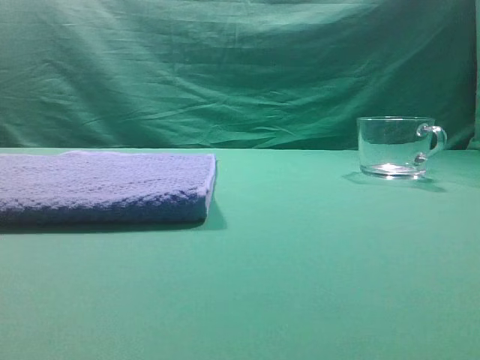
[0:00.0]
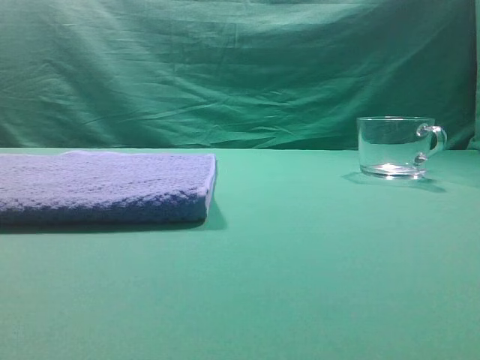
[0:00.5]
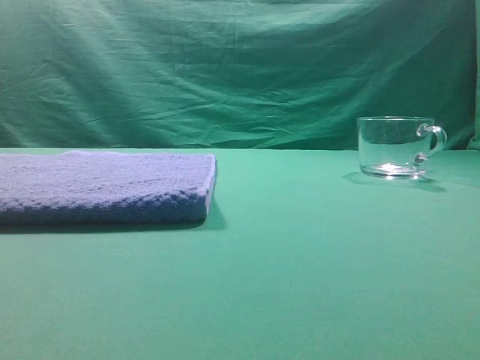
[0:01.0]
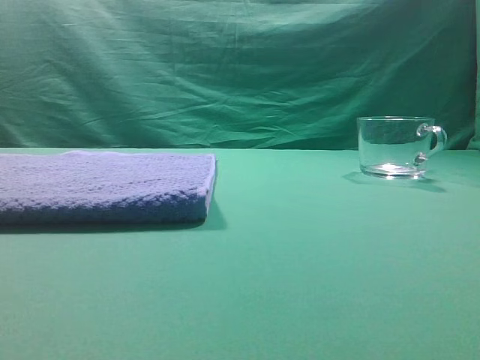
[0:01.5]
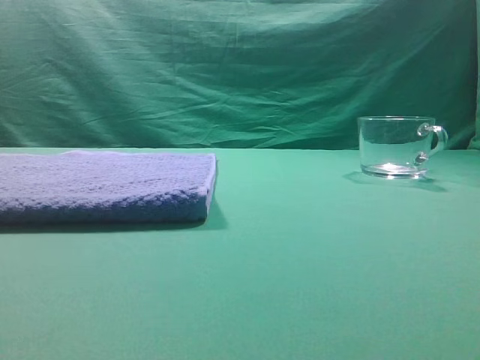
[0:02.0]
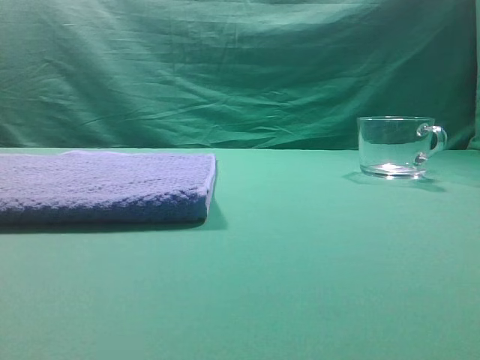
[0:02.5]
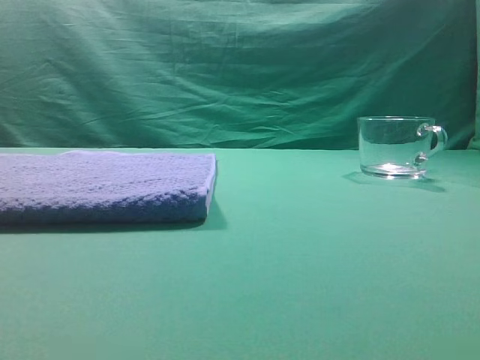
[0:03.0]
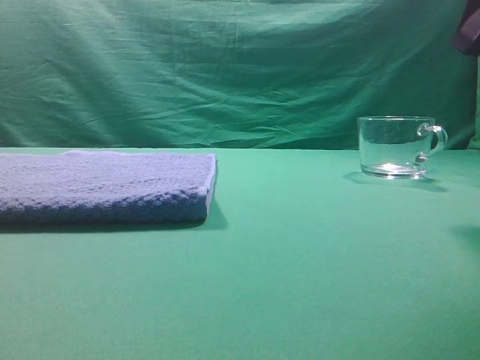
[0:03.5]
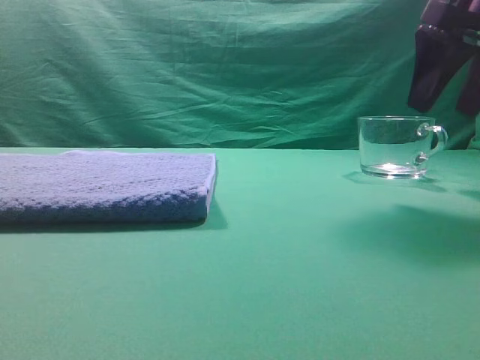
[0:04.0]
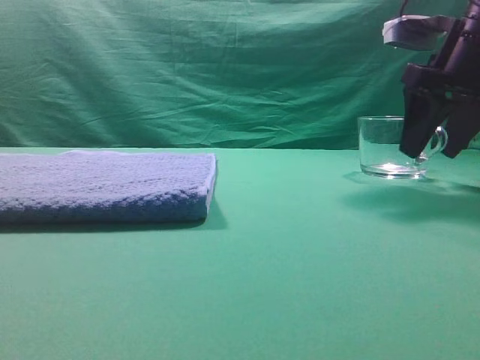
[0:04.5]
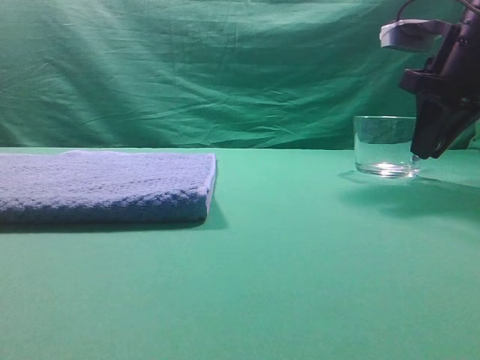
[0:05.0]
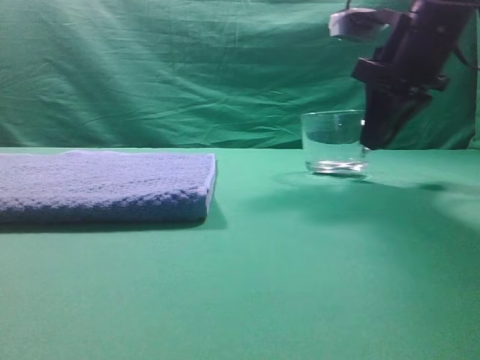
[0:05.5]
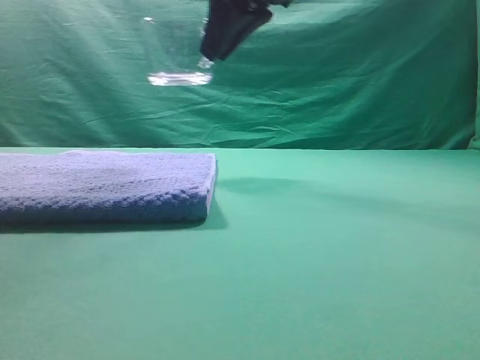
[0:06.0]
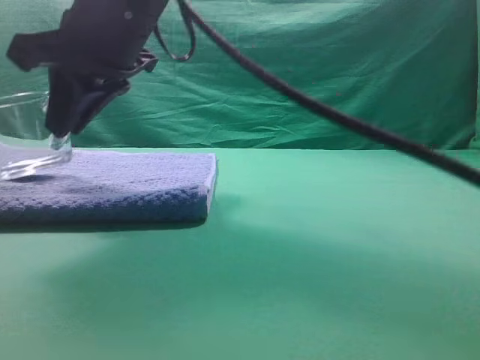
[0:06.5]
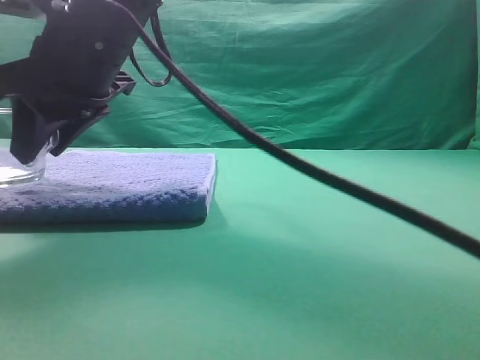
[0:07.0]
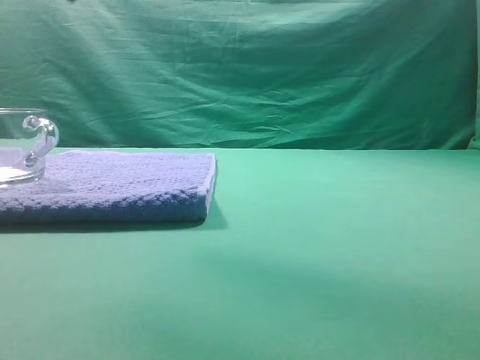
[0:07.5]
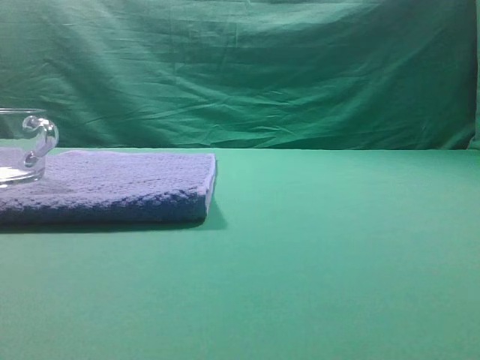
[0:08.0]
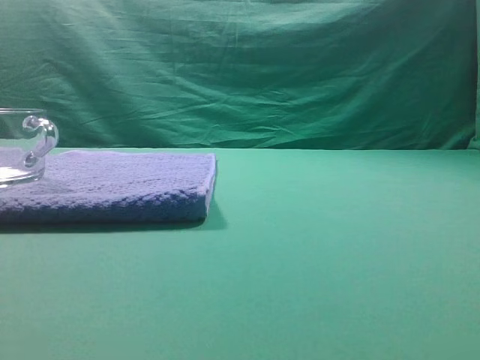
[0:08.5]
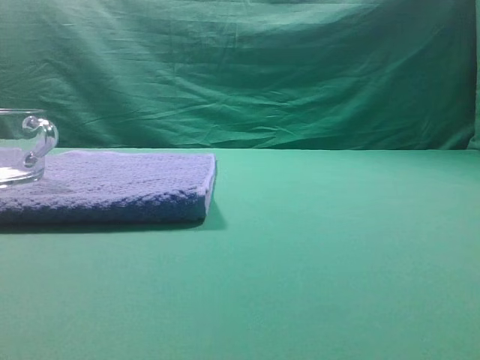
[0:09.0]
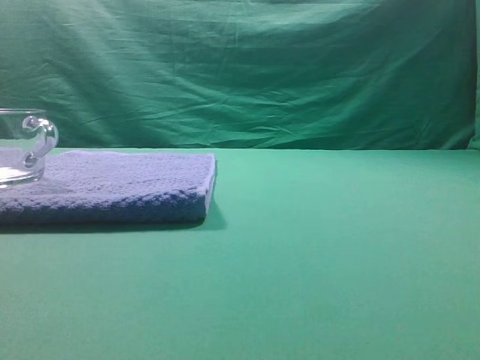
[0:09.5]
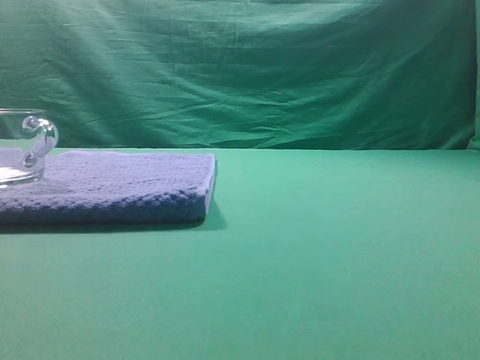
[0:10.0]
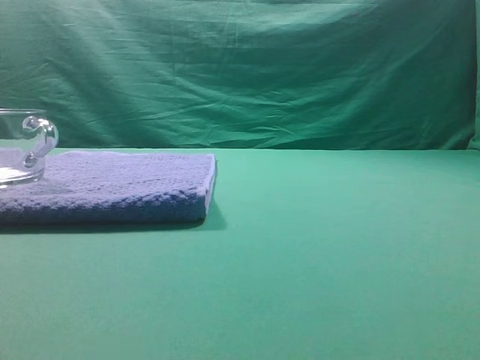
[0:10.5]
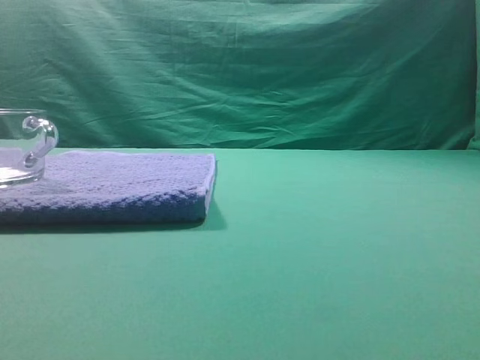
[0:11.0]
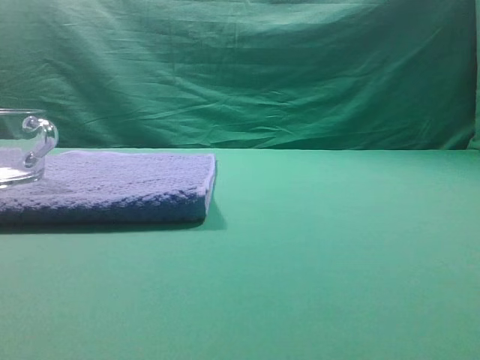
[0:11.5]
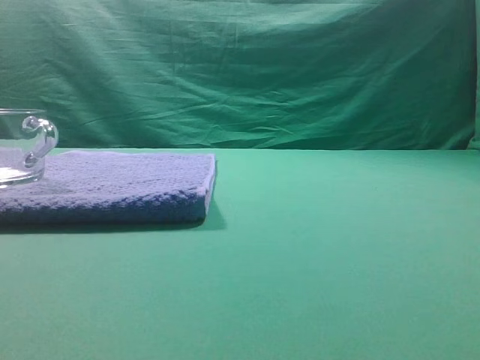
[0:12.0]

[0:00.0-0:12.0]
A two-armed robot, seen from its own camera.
Task of the whole recording: grasp the transparent glass cup and place it within the blue towel.
Step, 0:00.0 to 0:05.5: Grasp the transparent glass cup.
Step, 0:06.0 to 0:07.0: Place the glass cup on the blue zone.

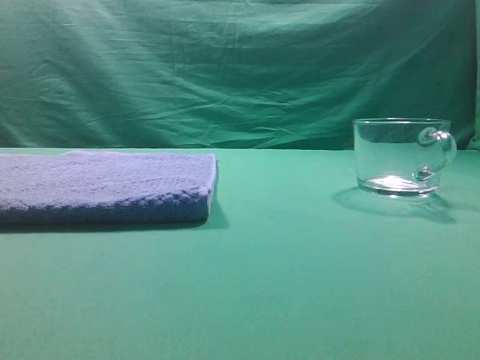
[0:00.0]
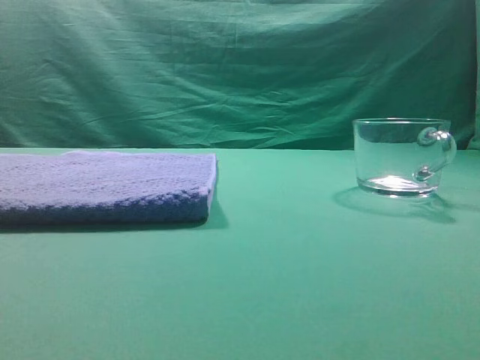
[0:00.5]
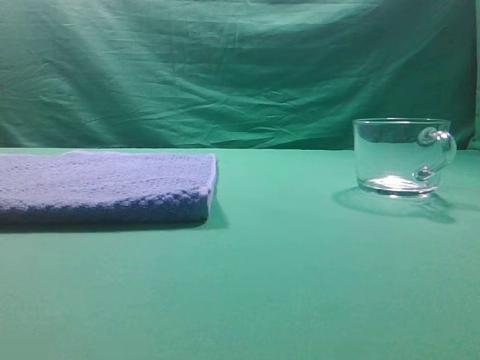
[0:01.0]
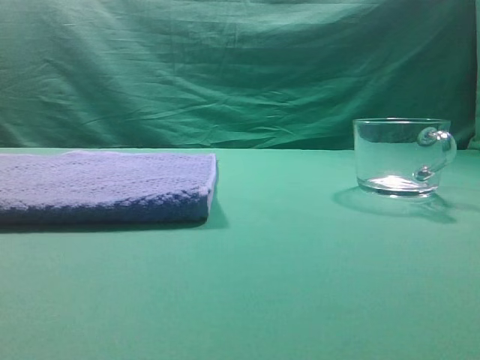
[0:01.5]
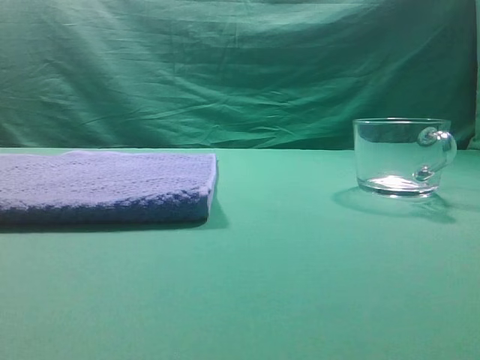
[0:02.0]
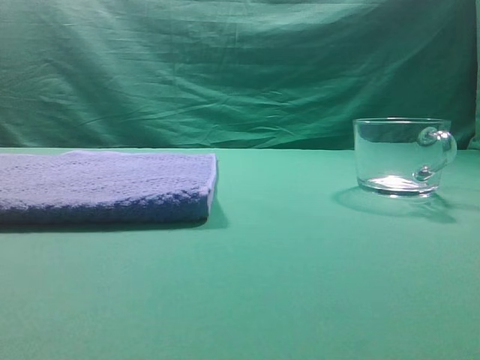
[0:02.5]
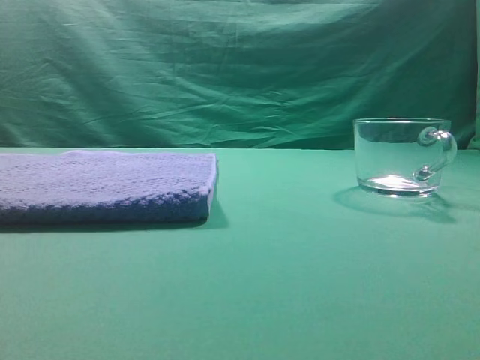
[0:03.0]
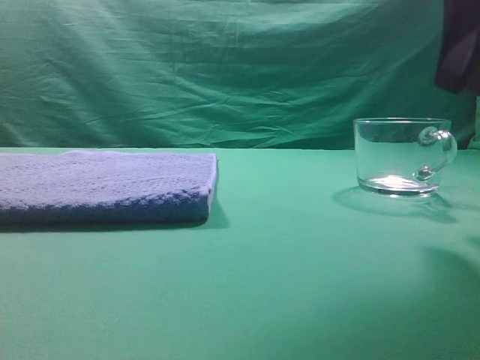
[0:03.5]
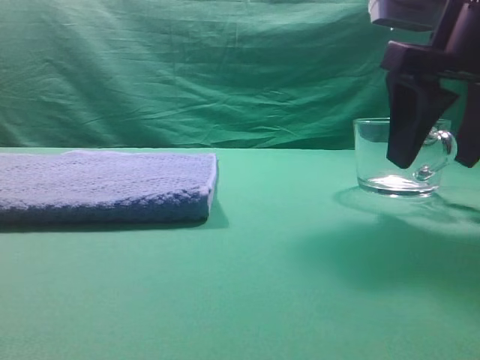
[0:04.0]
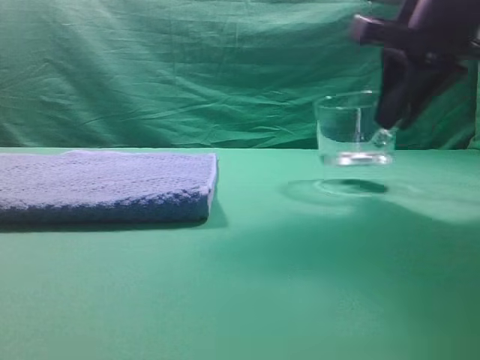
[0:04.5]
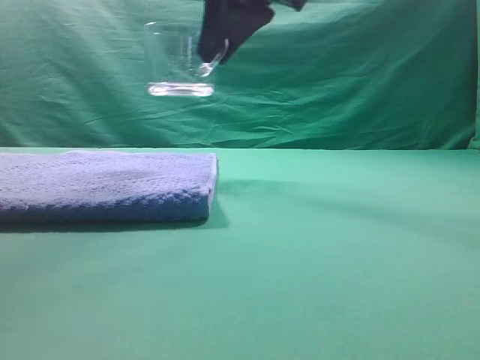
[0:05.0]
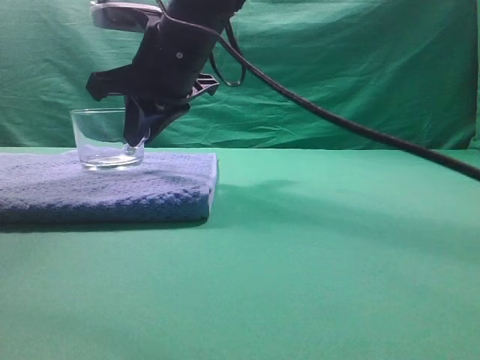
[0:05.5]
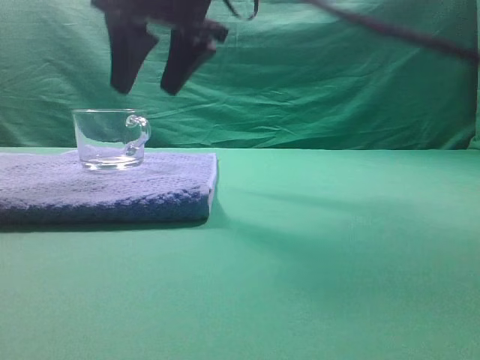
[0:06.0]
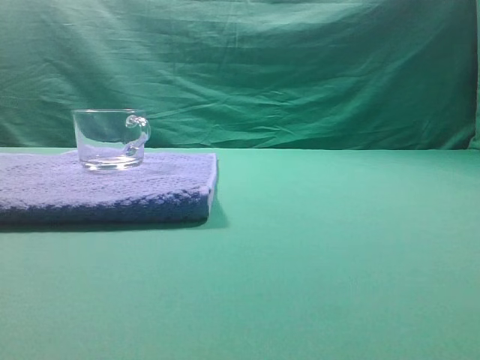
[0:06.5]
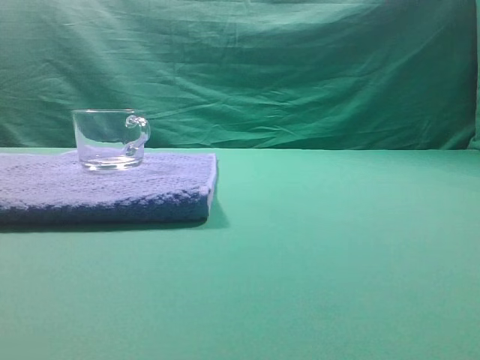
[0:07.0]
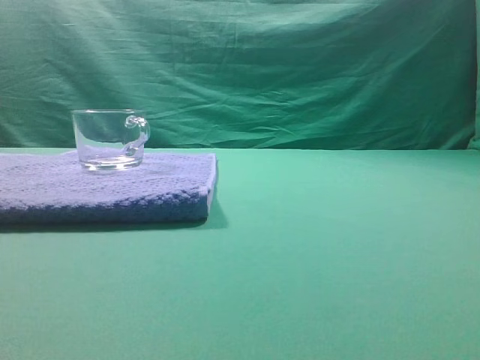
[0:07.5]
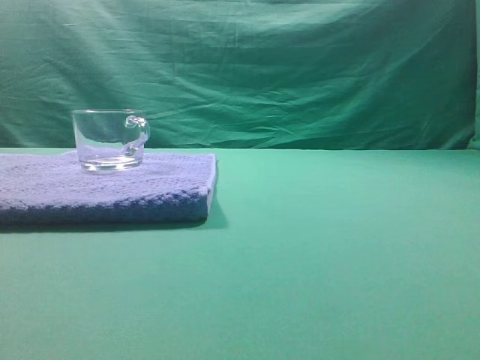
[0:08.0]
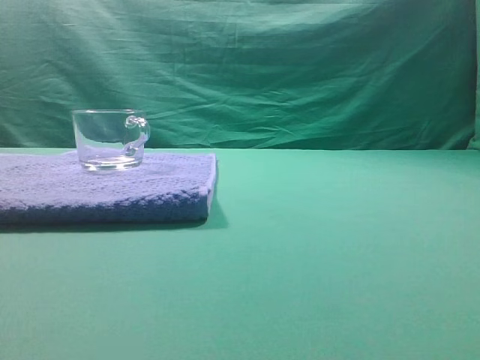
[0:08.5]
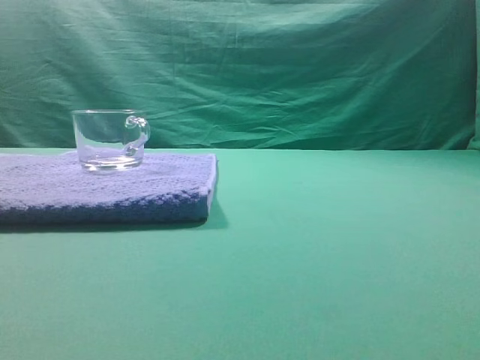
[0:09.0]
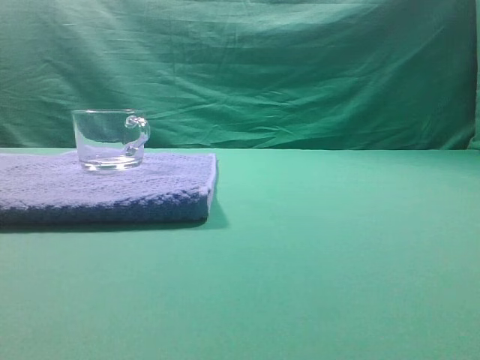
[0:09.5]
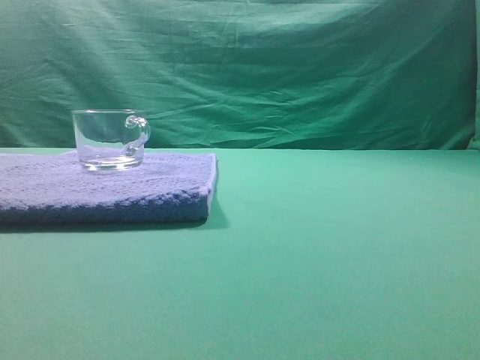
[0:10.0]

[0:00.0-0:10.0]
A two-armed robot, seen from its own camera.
Task of the whole recording: grasp the transparent glass cup and place it within the blue towel.
Step, 0:00.0 to 0:04.5: Grasp the transparent glass cup.
Step, 0:05.0 to 0:06.0: Place the glass cup on the blue zone.

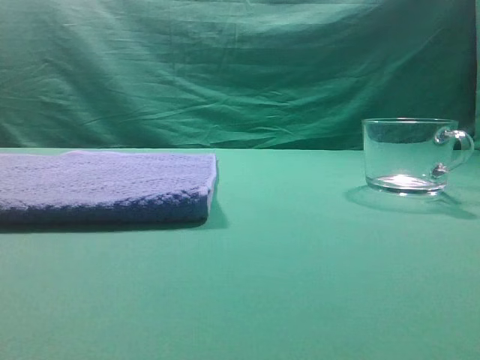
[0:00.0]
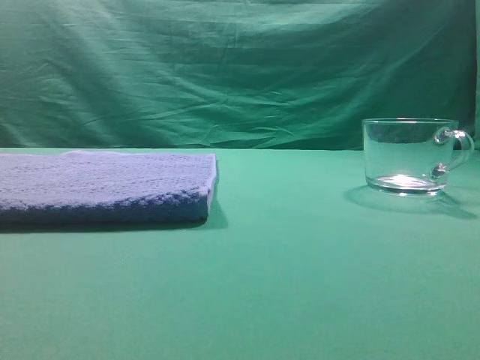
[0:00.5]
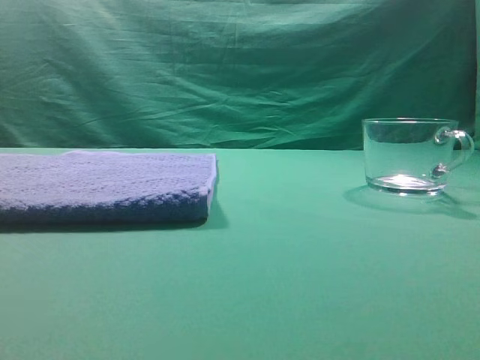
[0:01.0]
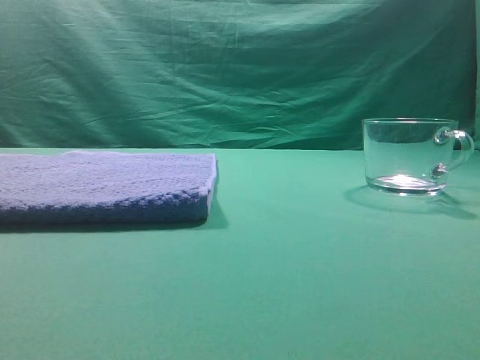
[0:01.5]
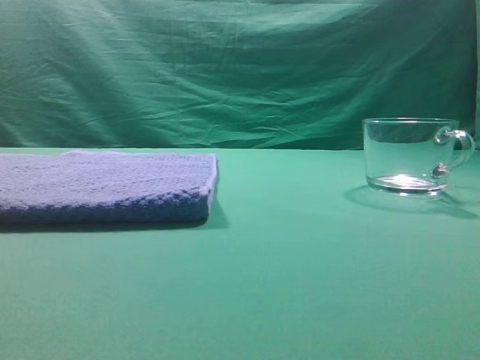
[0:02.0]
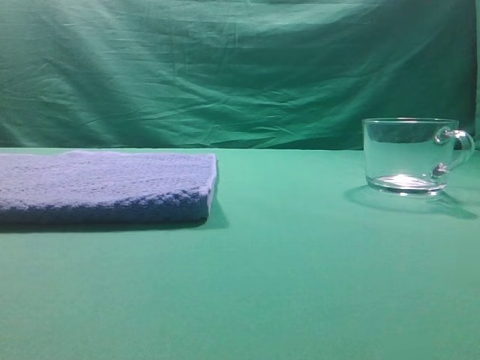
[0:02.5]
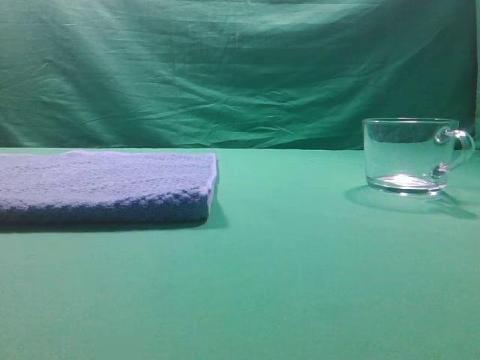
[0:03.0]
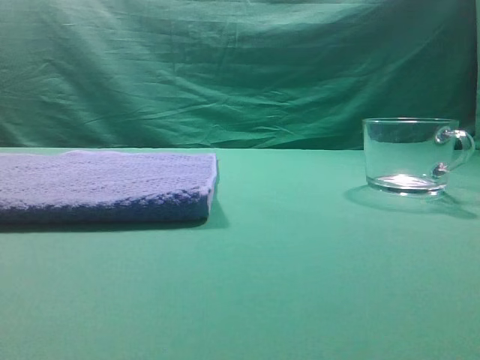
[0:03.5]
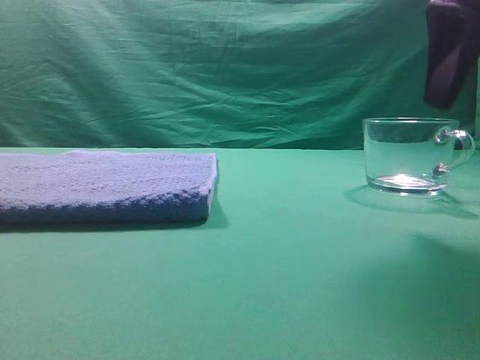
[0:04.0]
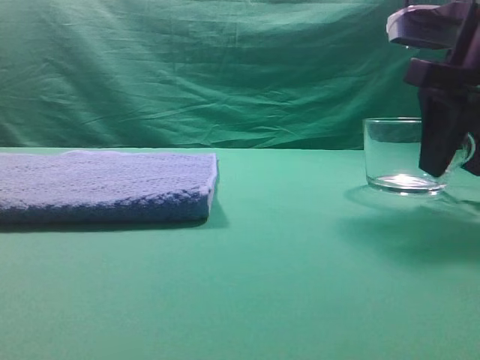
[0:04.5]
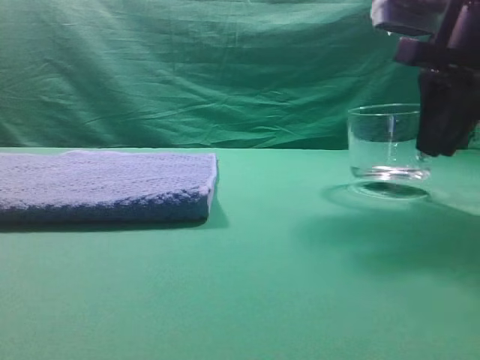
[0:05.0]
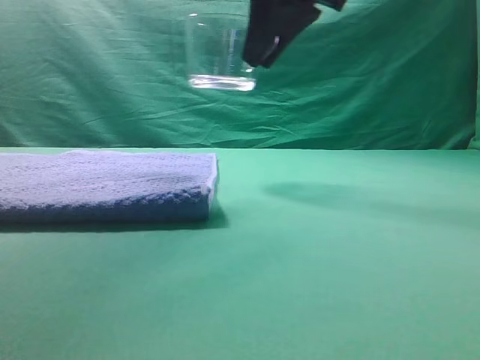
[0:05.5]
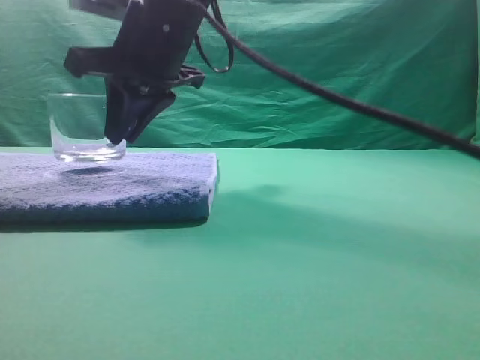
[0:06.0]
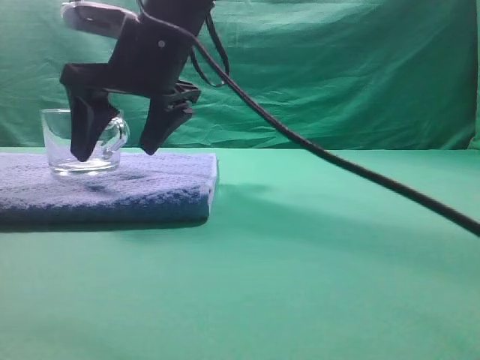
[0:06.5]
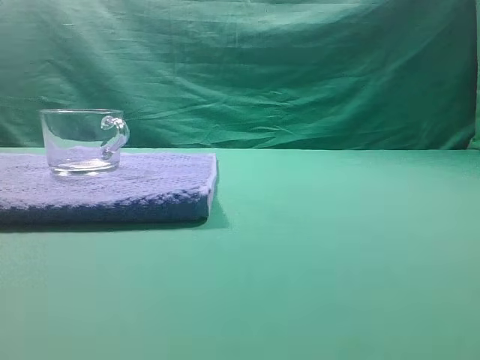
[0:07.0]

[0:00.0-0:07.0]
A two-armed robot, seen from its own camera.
Task of the whole recording: grasp the transparent glass cup and place it within the blue towel.
Step, 0:00.0 to 0:05.0: Grasp the transparent glass cup.
Step, 0:05.5 to 0:06.5: Place the glass cup on the blue zone.
